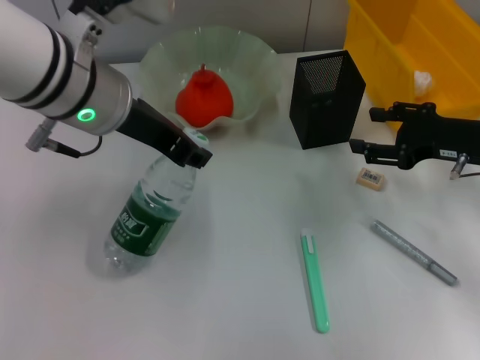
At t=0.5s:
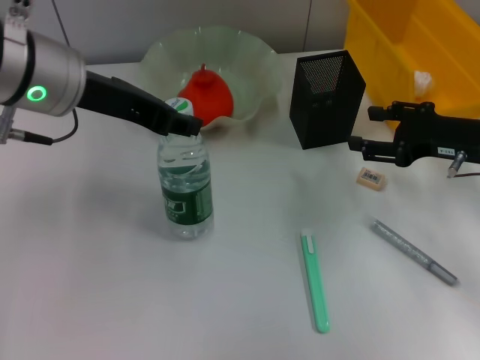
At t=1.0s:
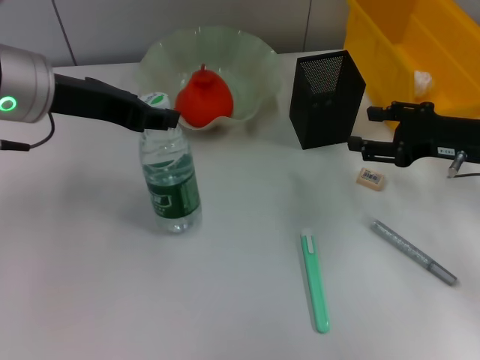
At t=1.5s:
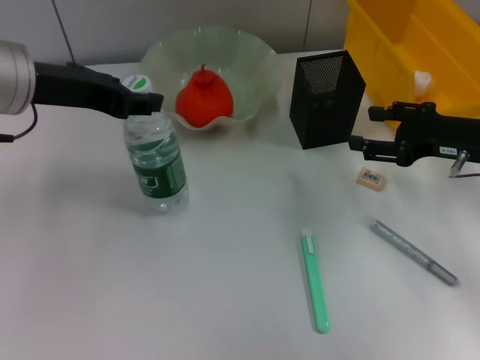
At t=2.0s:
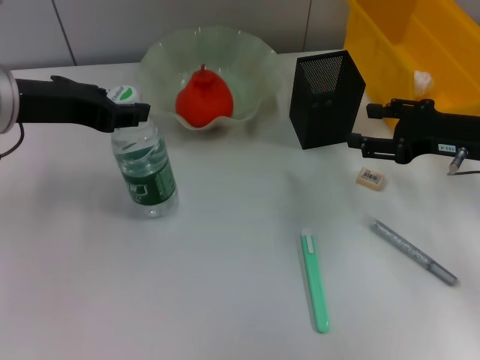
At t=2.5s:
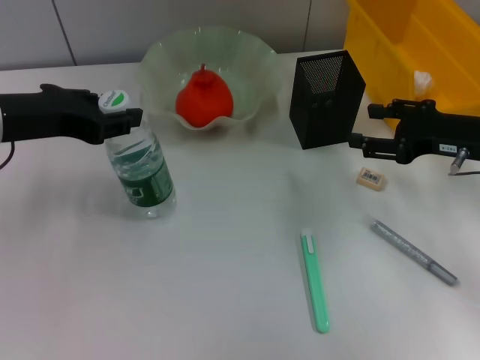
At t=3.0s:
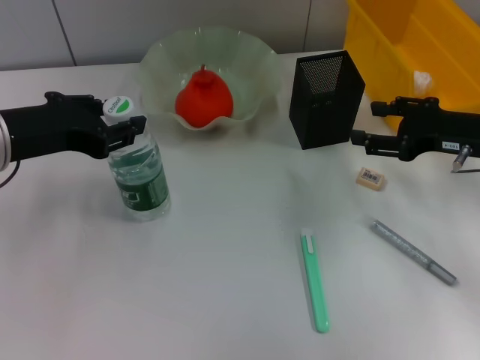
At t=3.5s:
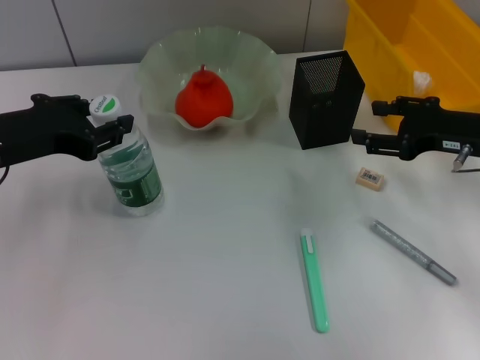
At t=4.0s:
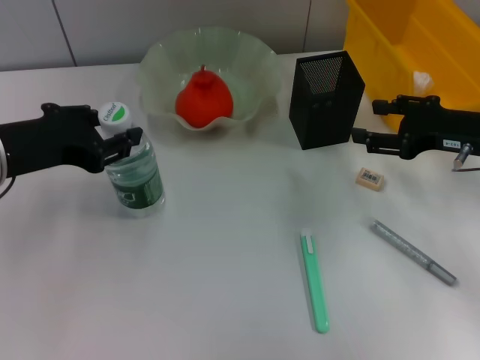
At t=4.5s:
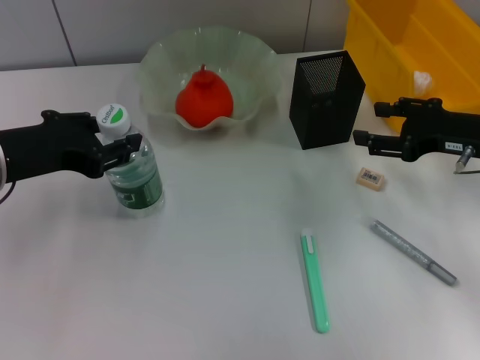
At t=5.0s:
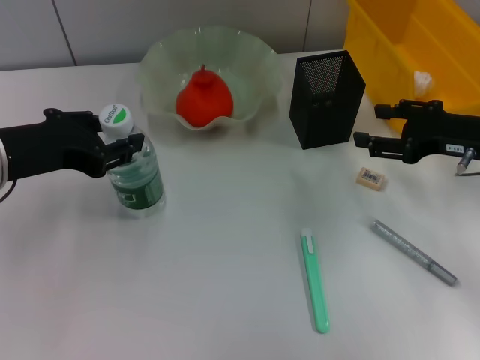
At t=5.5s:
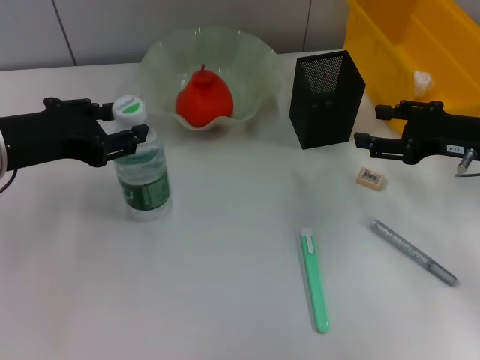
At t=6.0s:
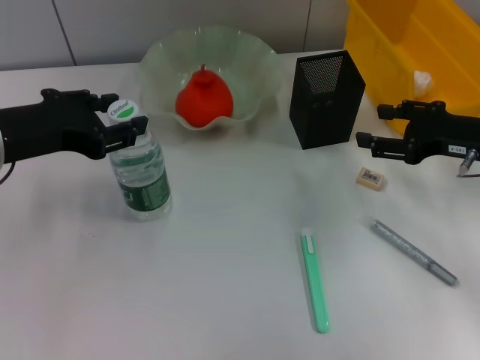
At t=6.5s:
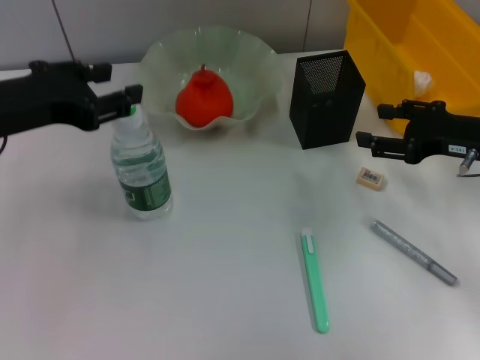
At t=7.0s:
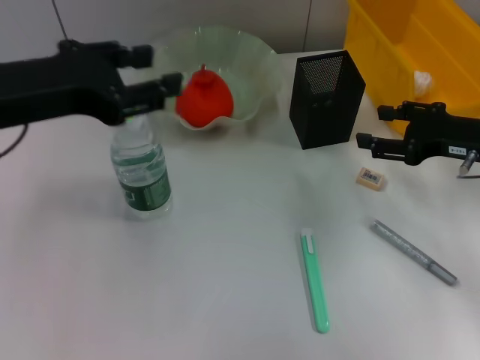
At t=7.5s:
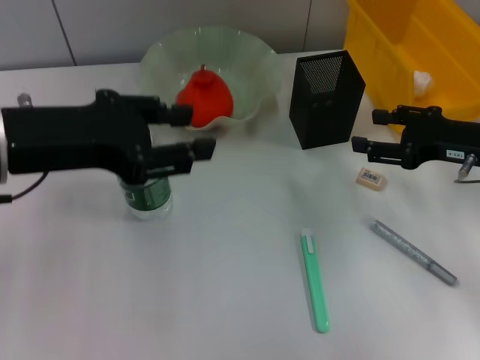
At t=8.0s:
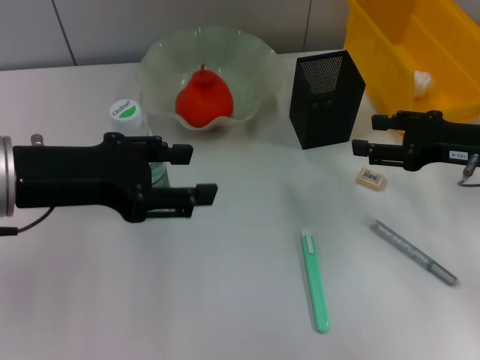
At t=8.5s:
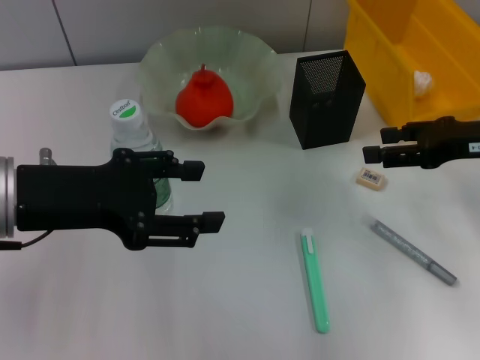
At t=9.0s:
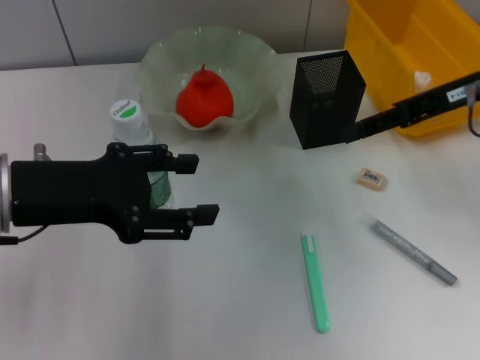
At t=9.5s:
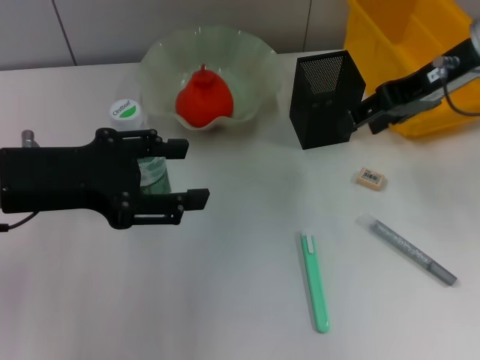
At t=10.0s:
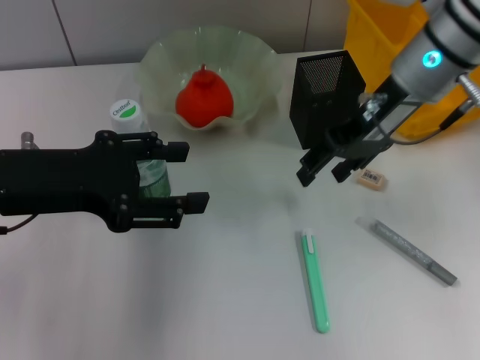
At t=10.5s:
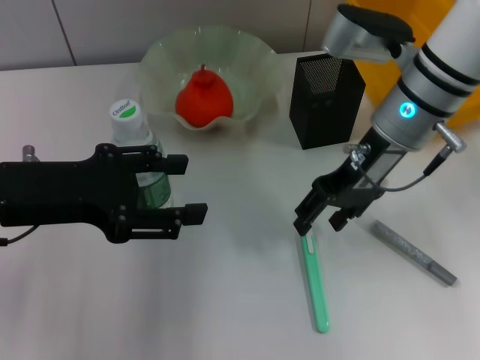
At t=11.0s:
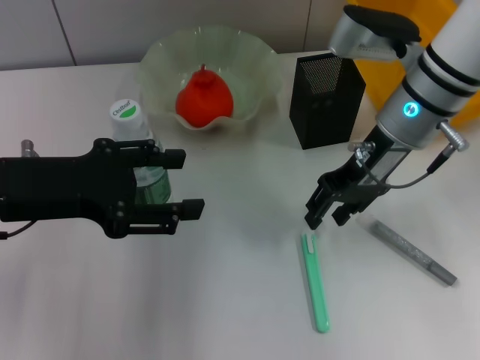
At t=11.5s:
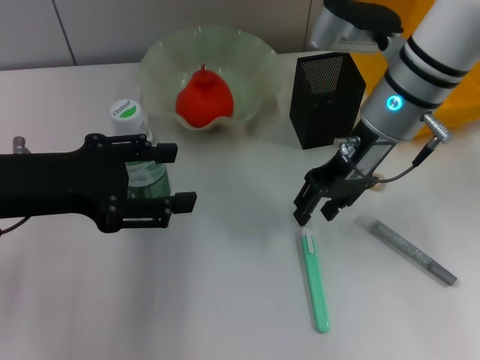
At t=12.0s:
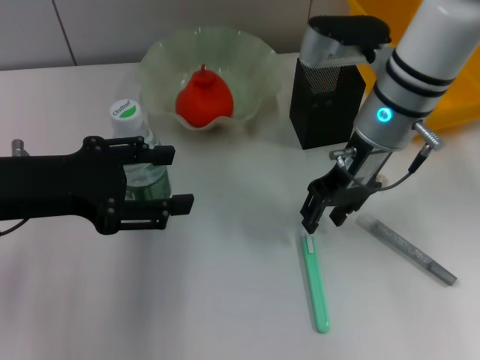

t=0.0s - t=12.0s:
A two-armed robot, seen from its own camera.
Step, t=0.0s - t=6.0s: Place the water bottle on the table with the left hand.
t=0.0s - t=2.0s: The left gripper shifts roughly 10 cm to the left.
t=2.0s - t=4.0s: The left gripper changes place by about 5 cm.
t=4.0s - t=6.0s: The grippers make only small movements.
t=8.0s - t=10.0s: The right gripper heads to the left, upward and forward, covering approximately 20 cm.
t=10.0s - t=12.0s: The right gripper changes place by about 5 cm.

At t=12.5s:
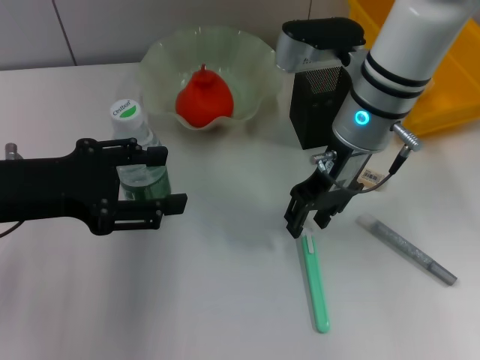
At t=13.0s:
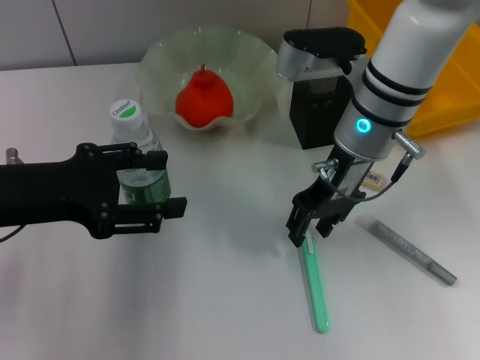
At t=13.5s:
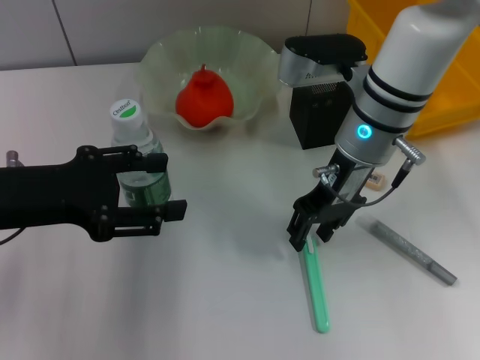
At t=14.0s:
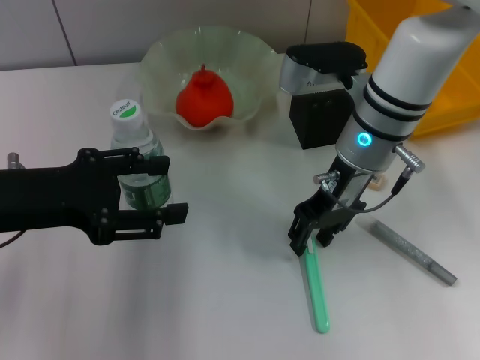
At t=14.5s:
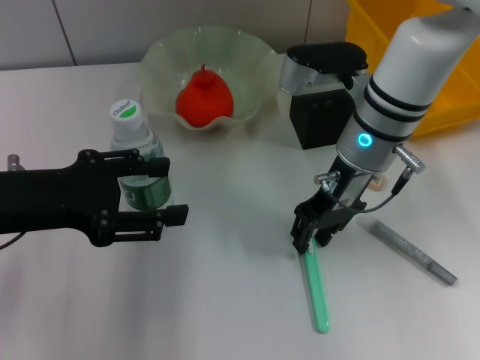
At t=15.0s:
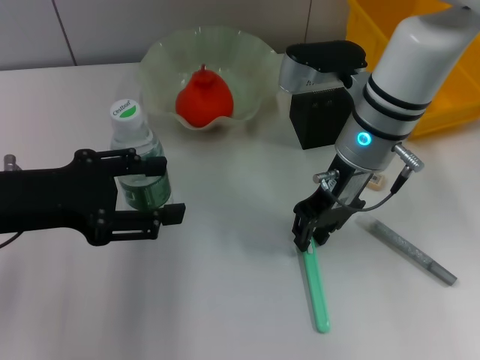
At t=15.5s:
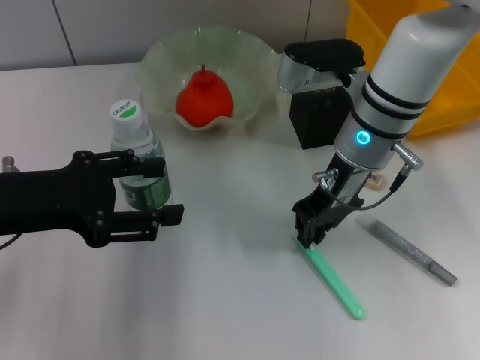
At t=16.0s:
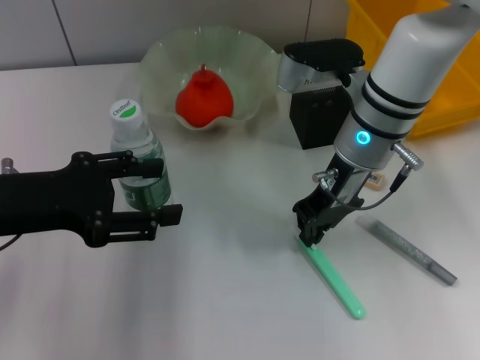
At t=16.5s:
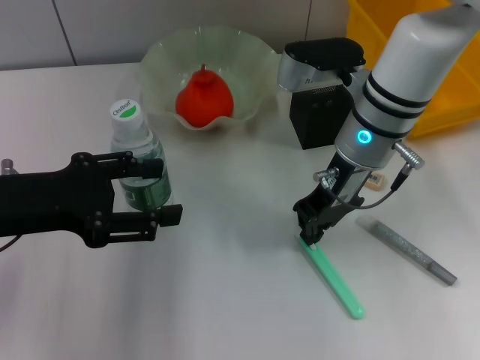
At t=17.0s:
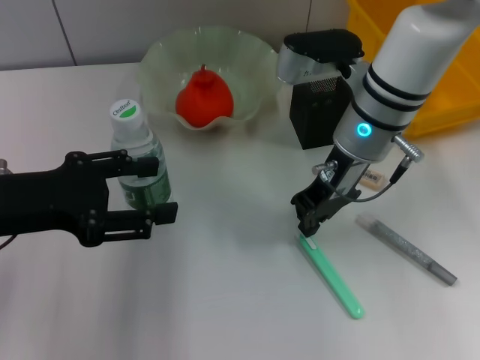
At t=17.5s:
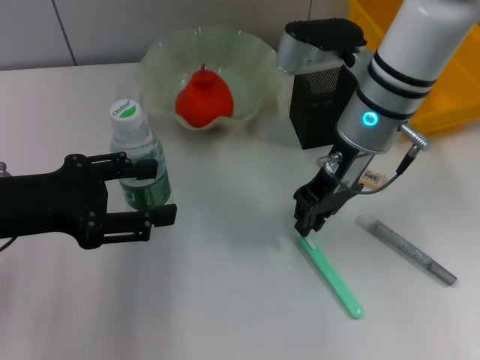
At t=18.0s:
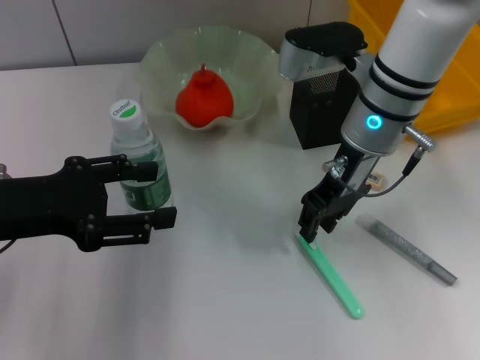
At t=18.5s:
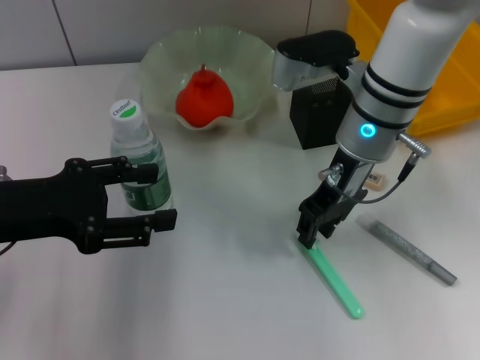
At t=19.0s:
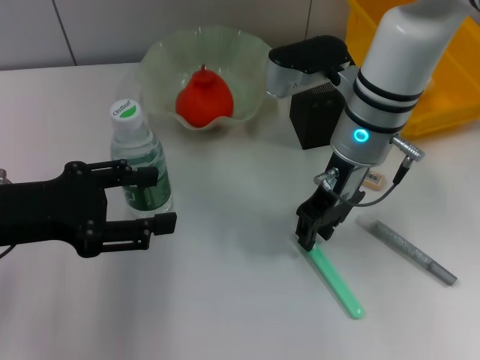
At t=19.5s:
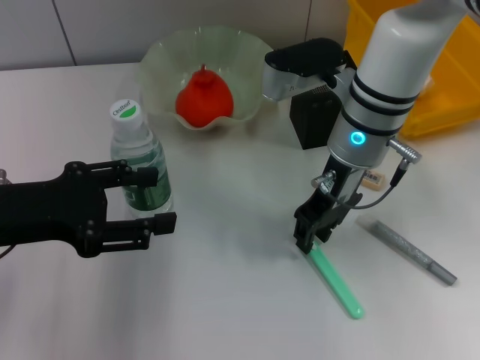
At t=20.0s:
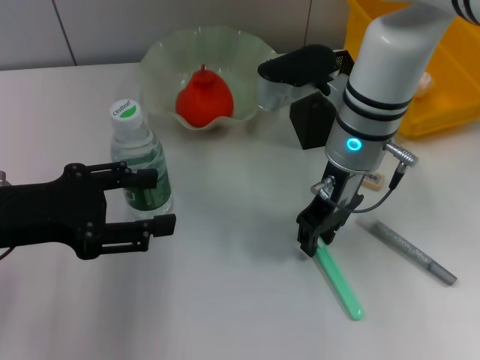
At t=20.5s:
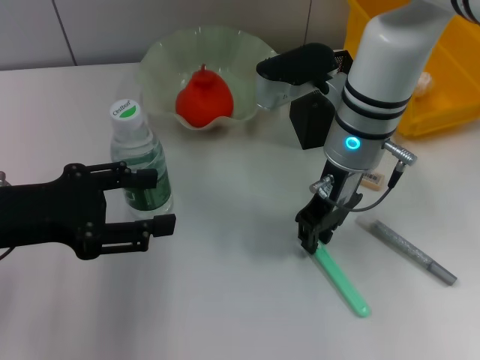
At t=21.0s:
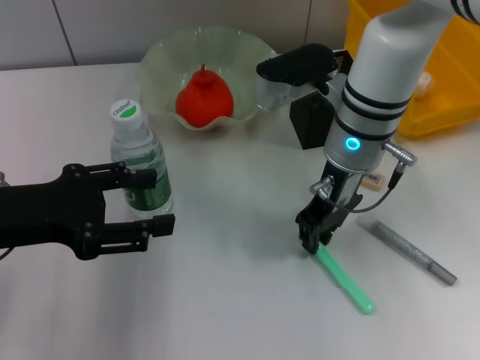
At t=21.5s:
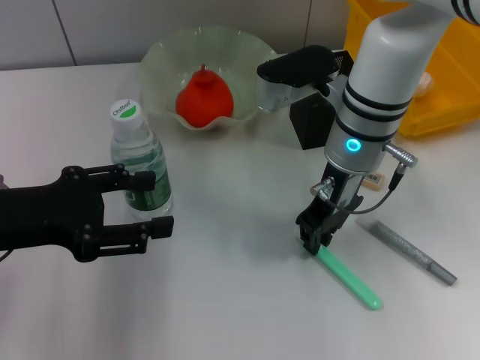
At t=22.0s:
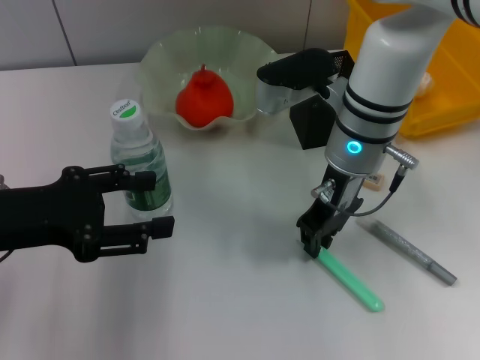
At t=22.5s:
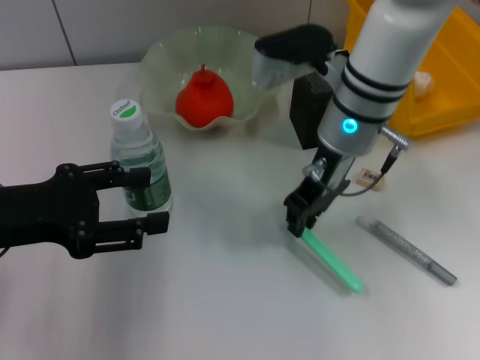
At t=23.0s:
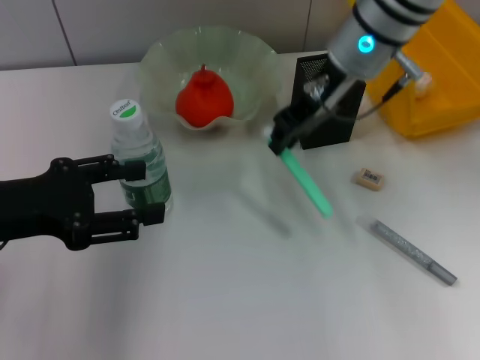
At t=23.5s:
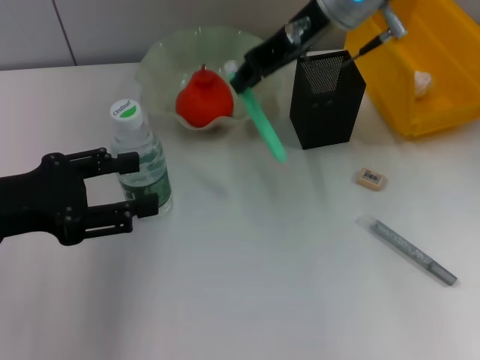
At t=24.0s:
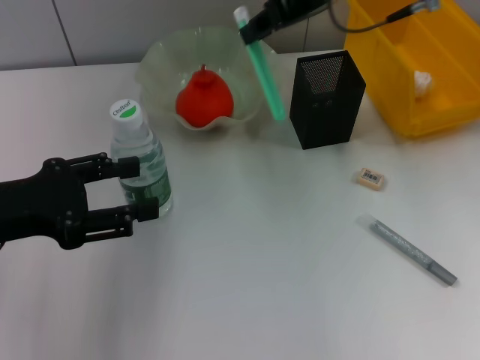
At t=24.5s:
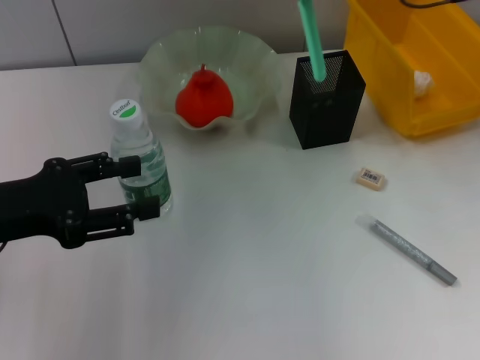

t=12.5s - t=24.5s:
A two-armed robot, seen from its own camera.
Step, t=12.5s - t=21.5s: Grab the blue utility knife with the right hand.
t=12.5s - t=14.5s: The grippers stay close to where they were, moving slightly.
t=14.5s - t=16.5s: The right gripper closes.
t=16.5s - t=18.5s: The right gripper opens.
t=18.5s - t=22.5s: The grippers move only a little.
t=22.5s - t=24.5s: The right gripper heads upward and to the right, covering approximately 15 cm.

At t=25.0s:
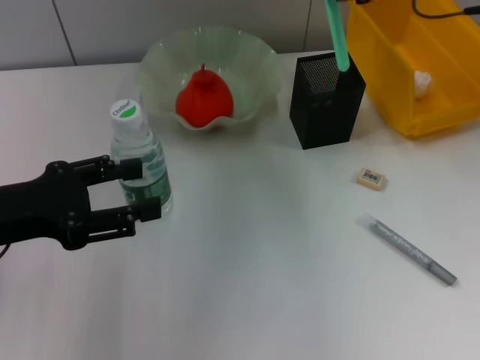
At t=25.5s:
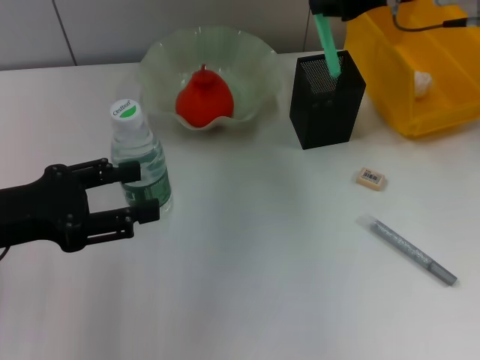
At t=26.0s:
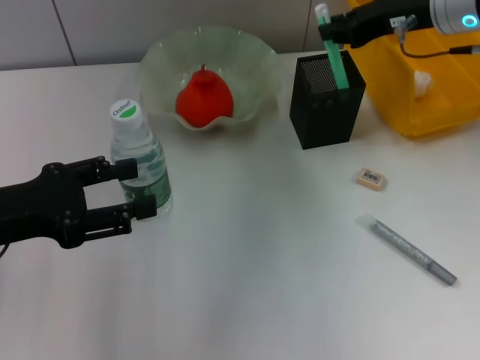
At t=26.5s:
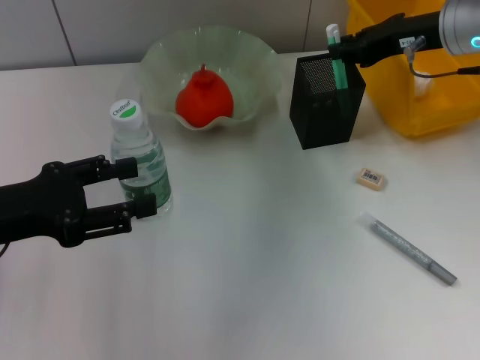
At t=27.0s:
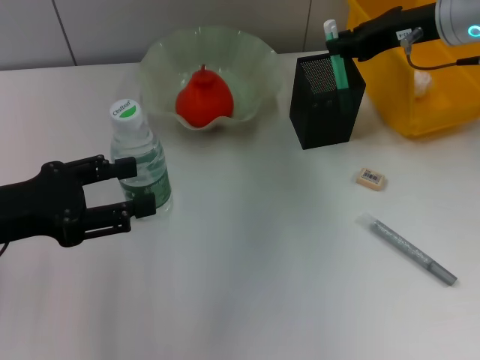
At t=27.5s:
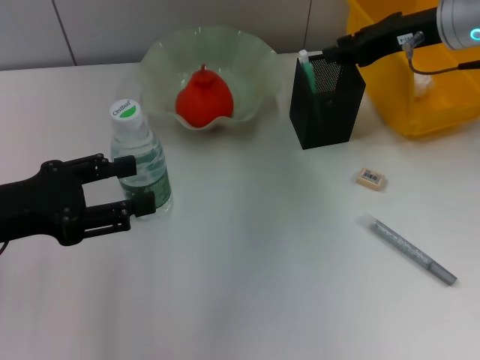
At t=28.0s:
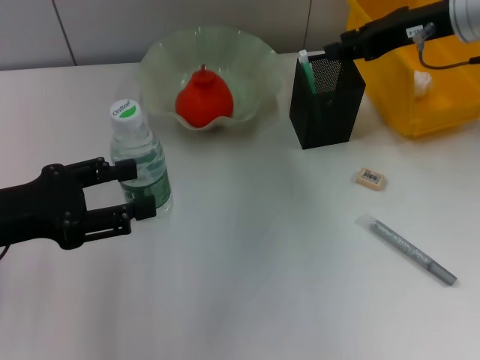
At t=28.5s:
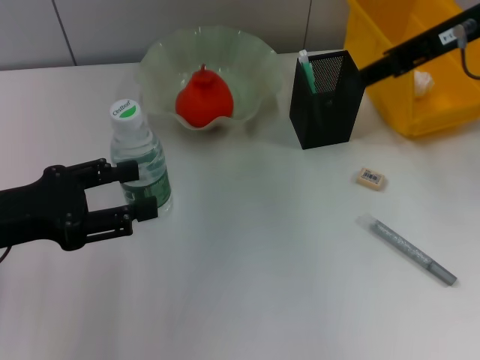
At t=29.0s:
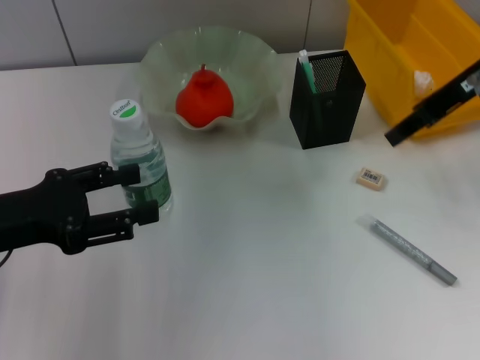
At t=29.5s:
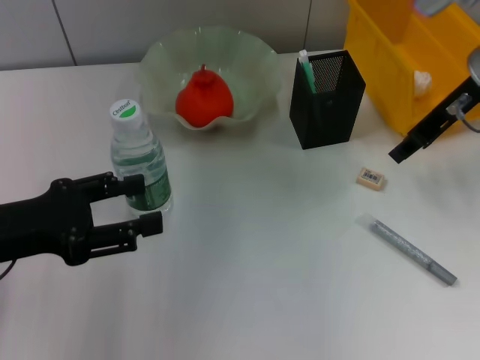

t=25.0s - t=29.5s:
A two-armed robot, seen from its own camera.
Step, t=25.0s - t=27.0s: Place the blue utility knife into the pen holder with the right hand.
t=25.0s - t=27.0s: The right gripper travels downward by approximately 5 cm.
